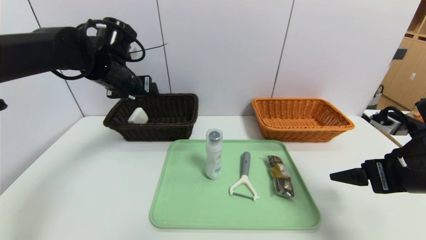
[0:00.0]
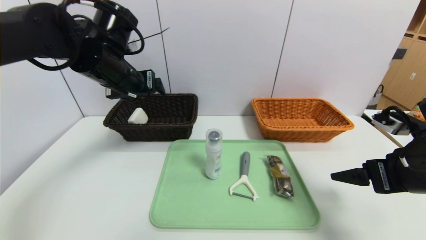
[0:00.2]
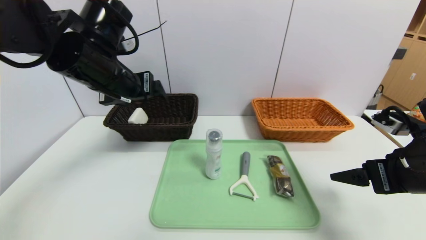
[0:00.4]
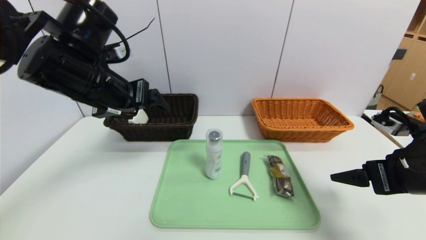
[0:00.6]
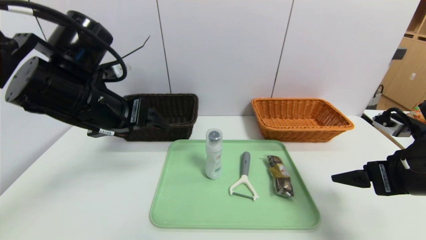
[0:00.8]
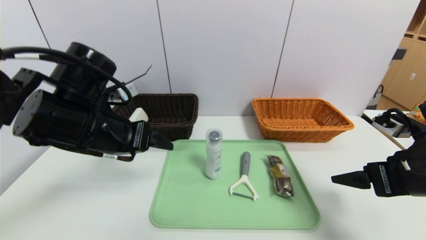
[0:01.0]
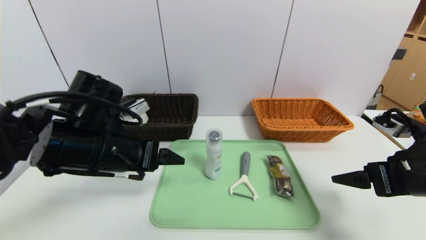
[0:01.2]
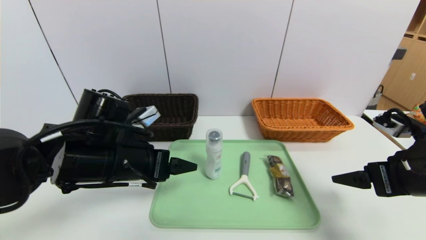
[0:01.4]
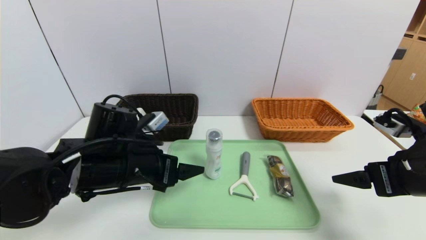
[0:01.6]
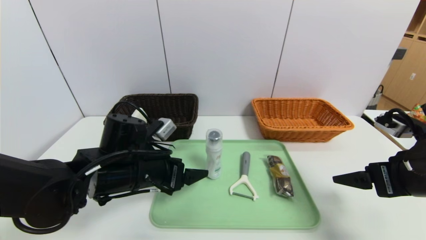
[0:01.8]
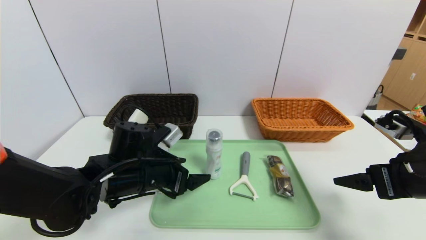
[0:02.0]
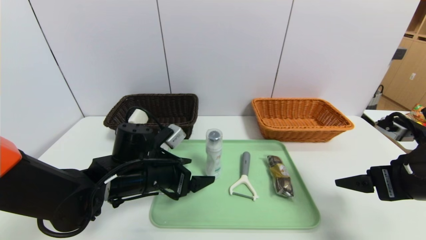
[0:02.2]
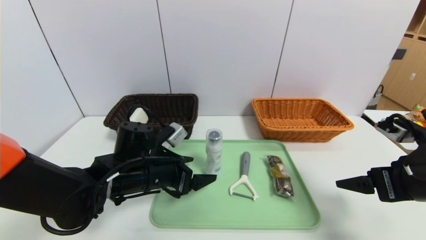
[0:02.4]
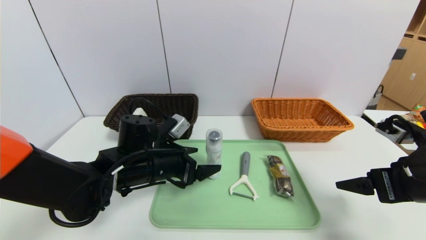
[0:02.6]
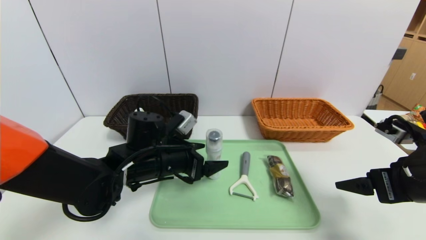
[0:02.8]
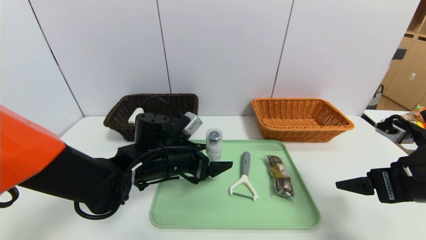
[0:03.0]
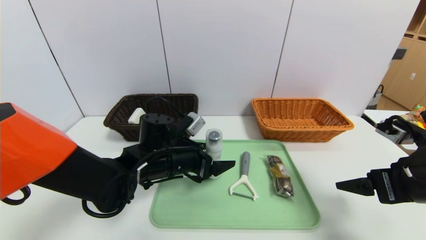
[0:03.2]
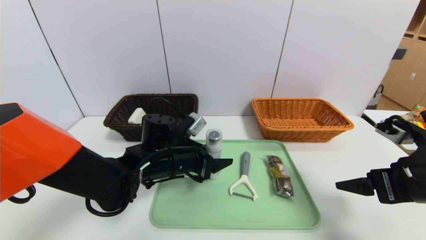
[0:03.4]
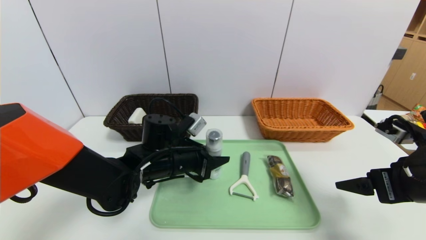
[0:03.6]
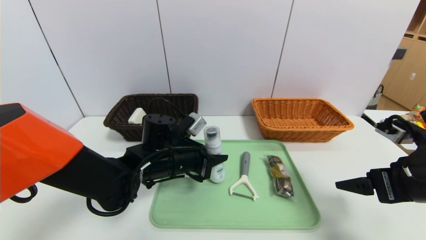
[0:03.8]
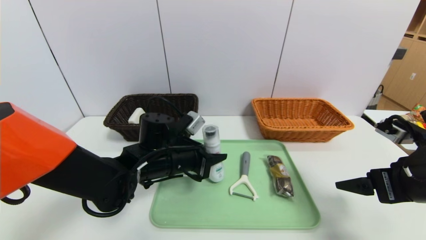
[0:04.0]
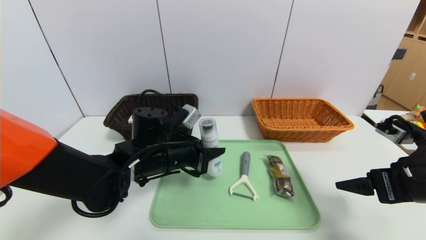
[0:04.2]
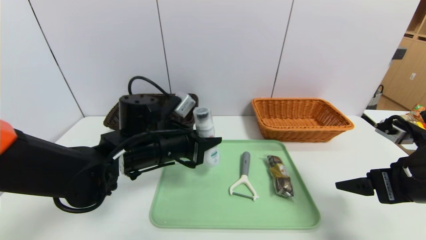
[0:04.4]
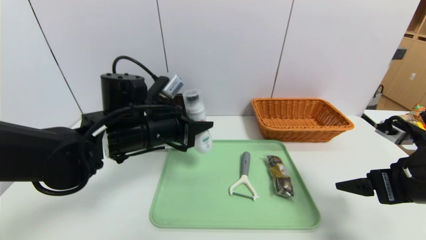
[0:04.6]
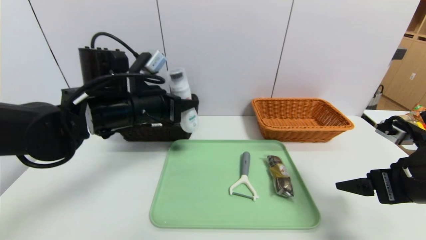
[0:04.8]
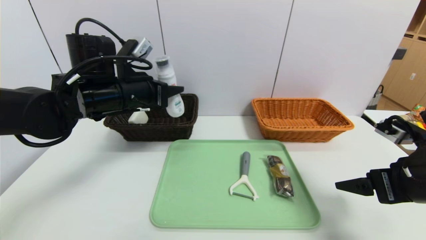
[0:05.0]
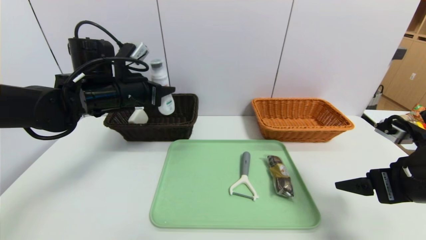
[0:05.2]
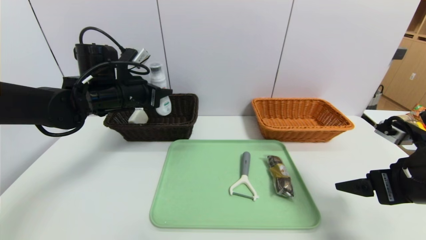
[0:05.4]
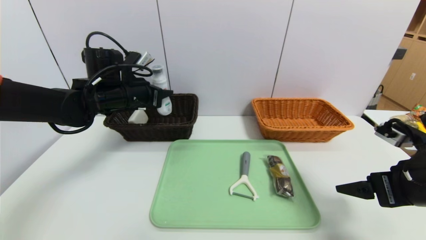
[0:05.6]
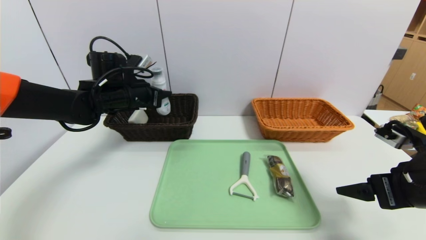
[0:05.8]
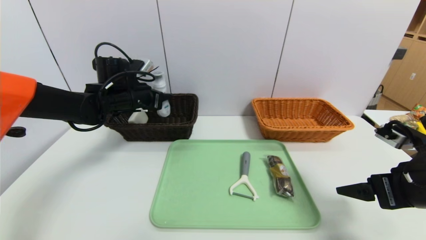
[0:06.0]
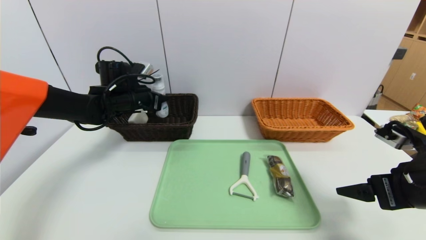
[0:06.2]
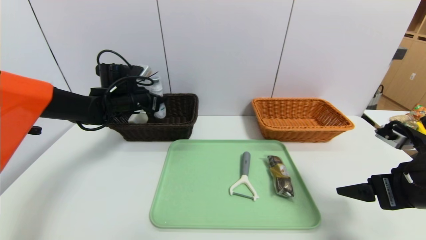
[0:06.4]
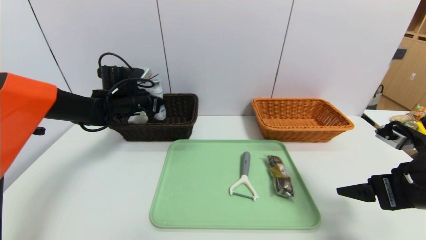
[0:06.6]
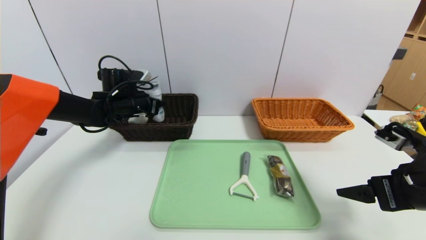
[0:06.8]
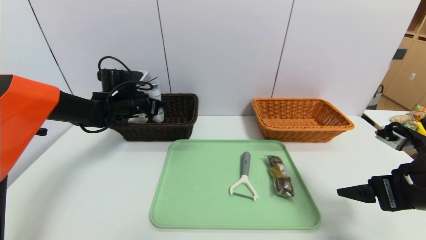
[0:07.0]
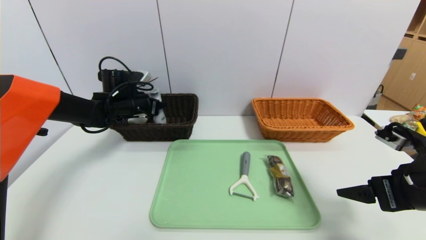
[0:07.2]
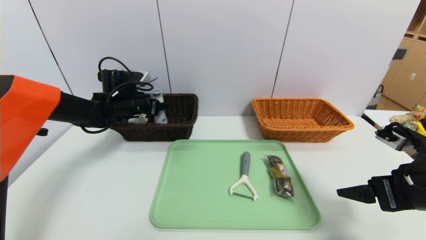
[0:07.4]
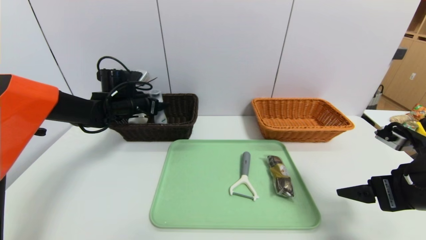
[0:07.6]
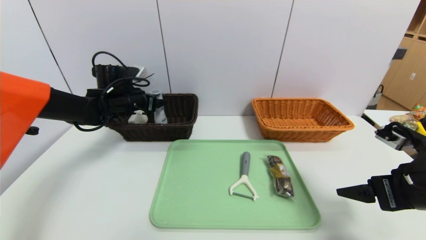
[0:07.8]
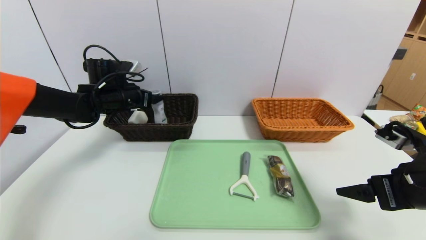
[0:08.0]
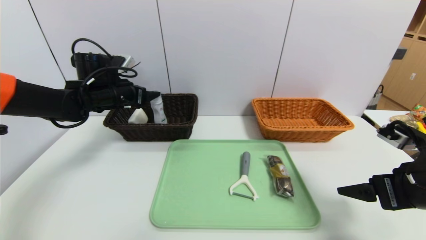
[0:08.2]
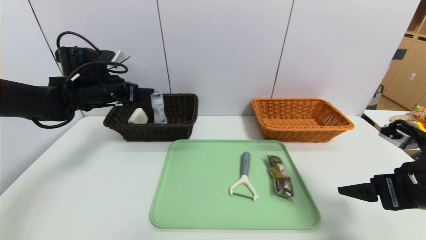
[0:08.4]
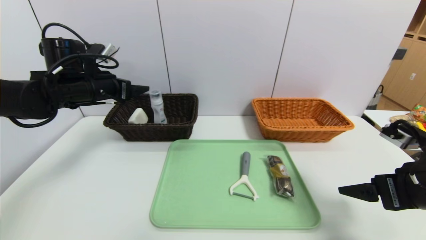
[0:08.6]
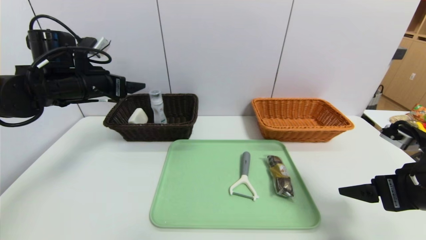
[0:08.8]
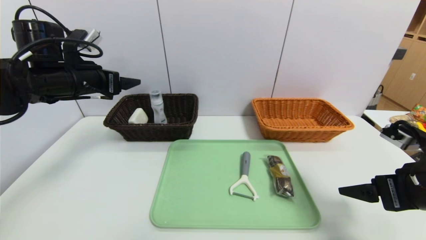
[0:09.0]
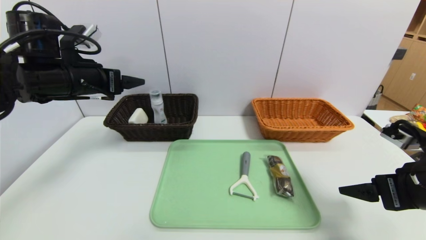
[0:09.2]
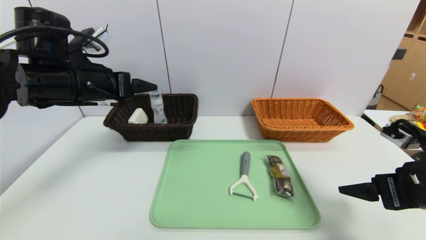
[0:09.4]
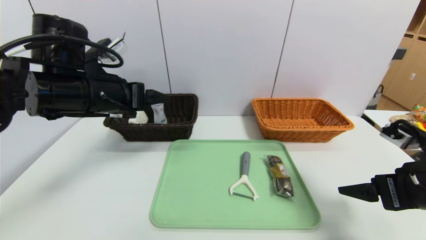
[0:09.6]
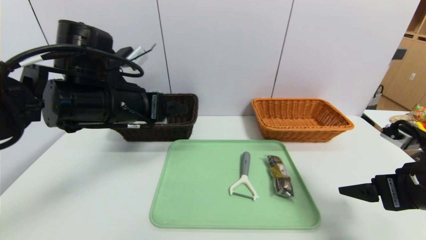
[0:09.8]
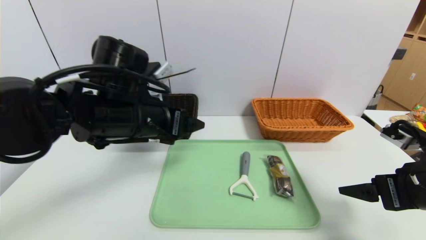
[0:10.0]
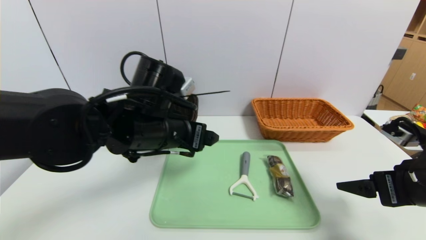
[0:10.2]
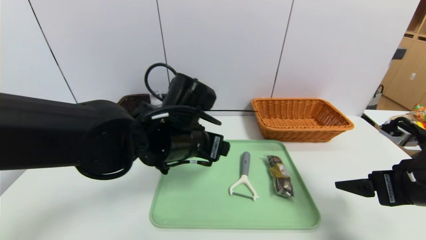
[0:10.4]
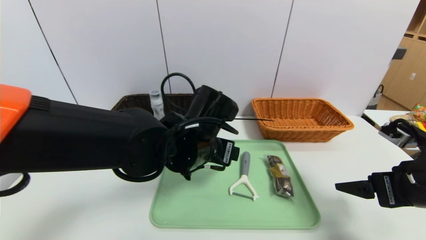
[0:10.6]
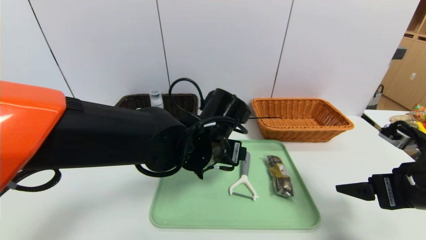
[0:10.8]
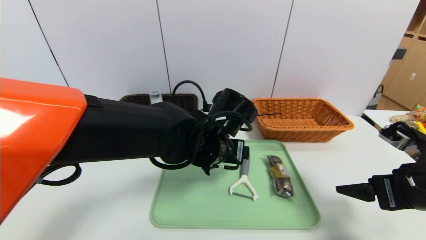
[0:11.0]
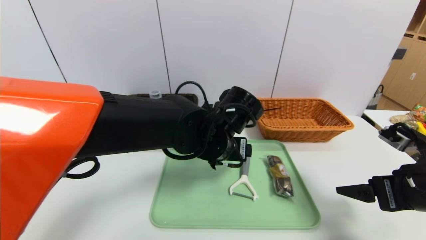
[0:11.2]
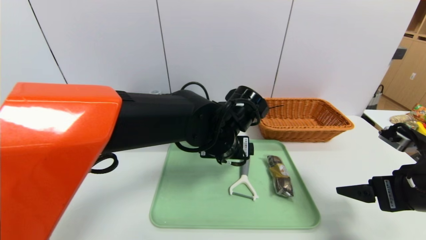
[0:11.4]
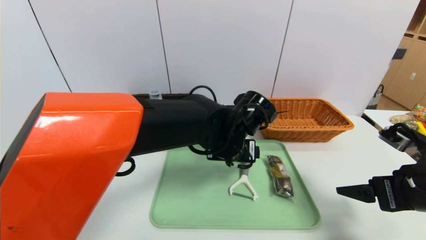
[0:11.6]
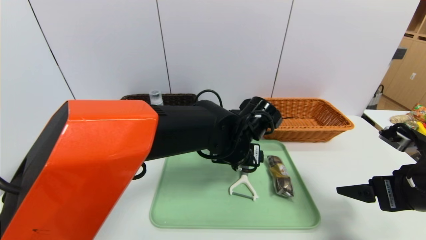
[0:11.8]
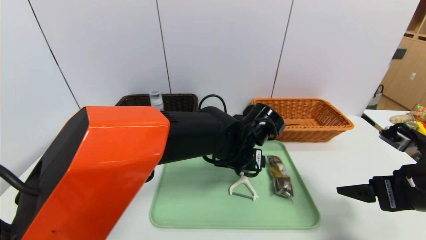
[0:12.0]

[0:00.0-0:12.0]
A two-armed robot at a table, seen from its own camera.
Task of the whole recording: place the food in the right basket with the right gripper, and place the non food items in the left basket with the left gripper.
Step, 0:00.0 to 0:07.6: Grasp the cleaning agent and put it in the left basket.
0:00.0 to 0:01.6: The left gripper heads backward and downward, covering roughly 20 cm.
0:01.6 to 0:03.0: The left gripper moves to the right, some 5 cm.
0:03.0 to 0:04.4: The left gripper shifts roughly 5 cm upward, and closes its fingers.
0:04.4 to 0:06.0: The left gripper travels forward and to the left by about 20 cm.
0:06.0 to 0:07.6: The left gripper opens up.
0:07.6 to 0:09.0: The left gripper travels backward and upward by approximately 15 cm.
0:09.0 to 0:10.4: The left gripper heads to the right, covering some 20 cm.
0:10.4 to 0:12.0: The left gripper goes approximately 10 cm to the right and downward.

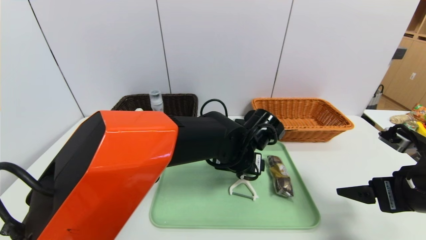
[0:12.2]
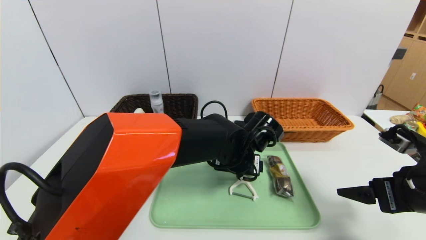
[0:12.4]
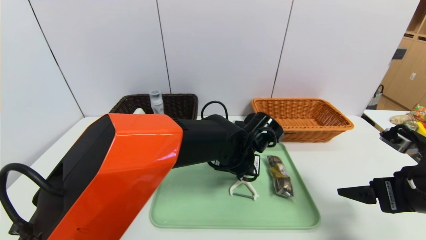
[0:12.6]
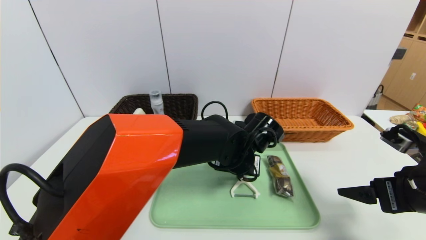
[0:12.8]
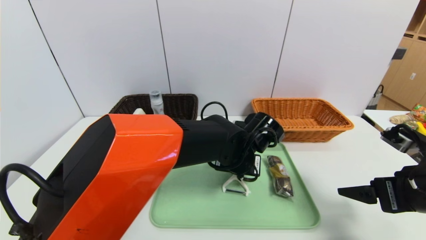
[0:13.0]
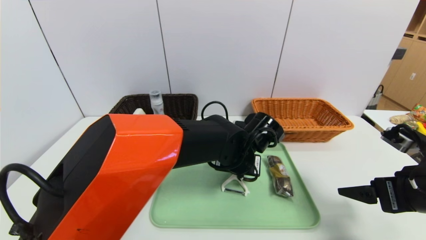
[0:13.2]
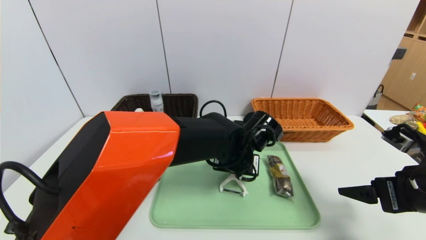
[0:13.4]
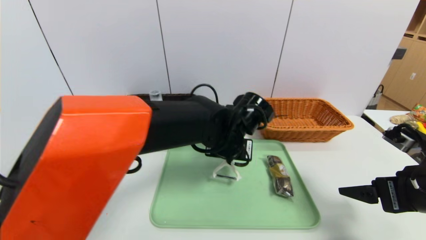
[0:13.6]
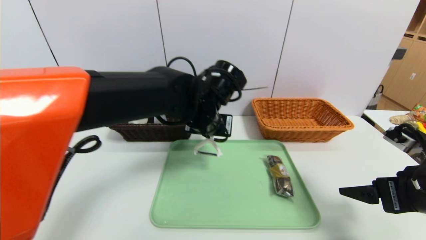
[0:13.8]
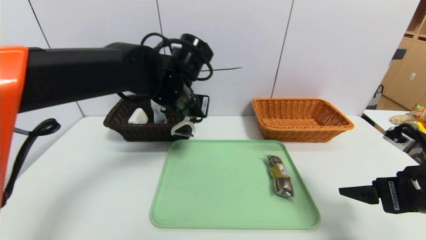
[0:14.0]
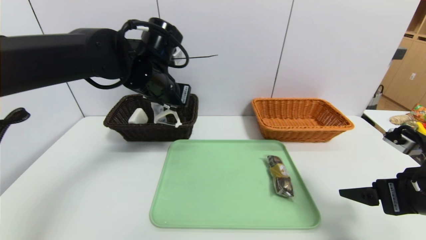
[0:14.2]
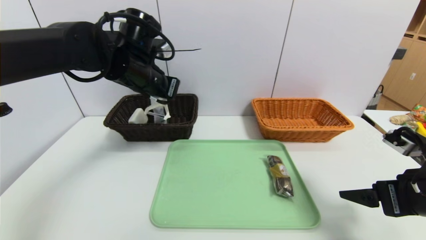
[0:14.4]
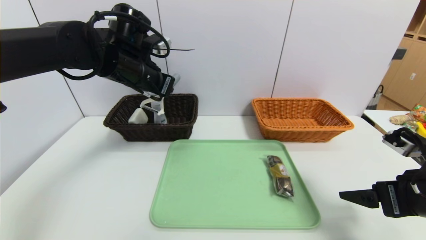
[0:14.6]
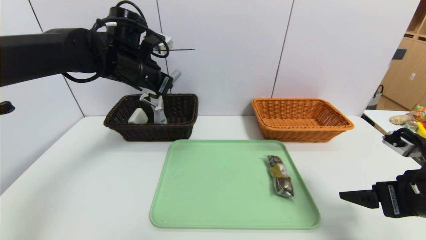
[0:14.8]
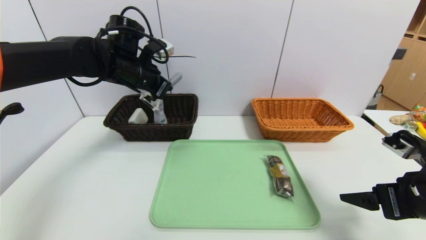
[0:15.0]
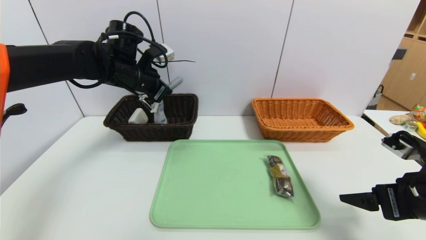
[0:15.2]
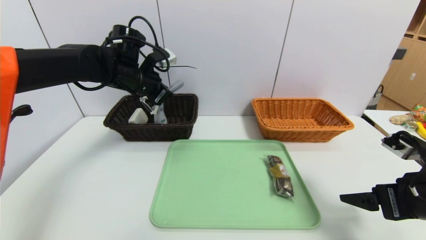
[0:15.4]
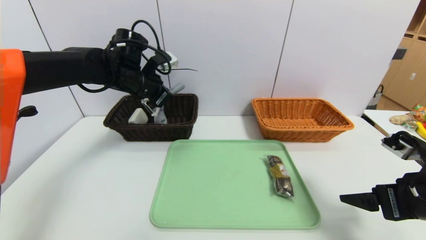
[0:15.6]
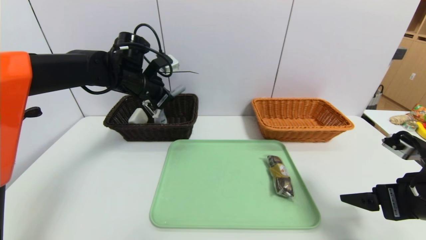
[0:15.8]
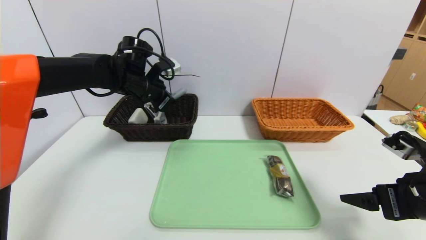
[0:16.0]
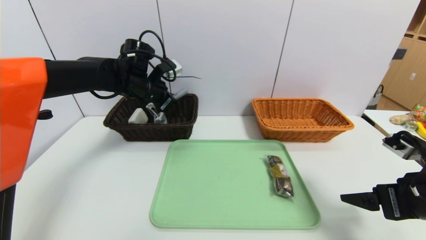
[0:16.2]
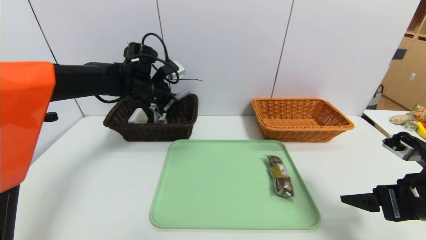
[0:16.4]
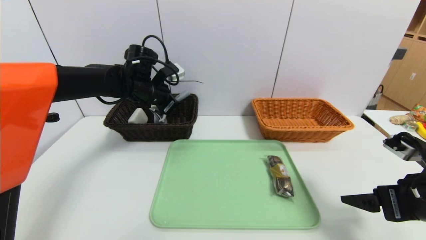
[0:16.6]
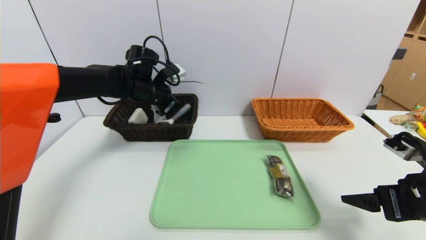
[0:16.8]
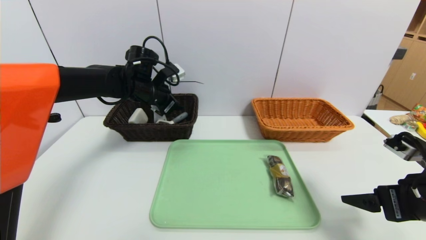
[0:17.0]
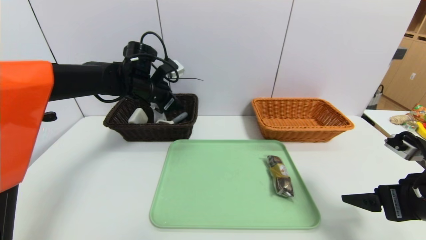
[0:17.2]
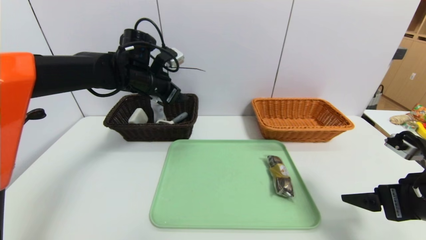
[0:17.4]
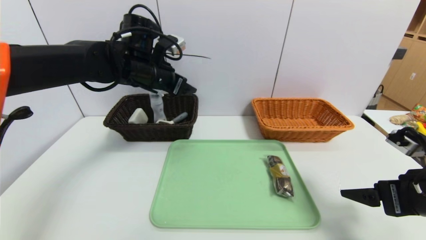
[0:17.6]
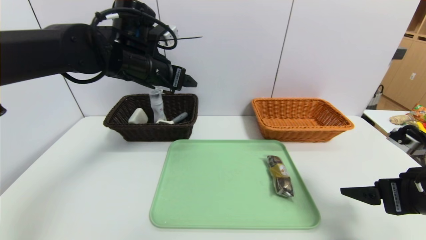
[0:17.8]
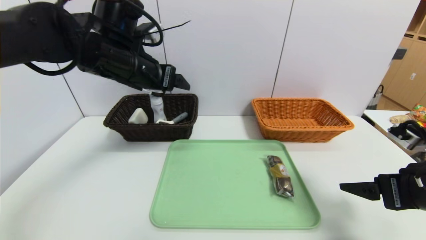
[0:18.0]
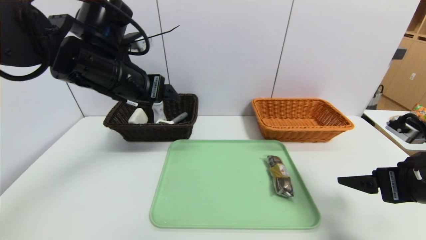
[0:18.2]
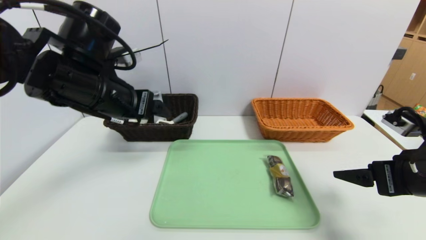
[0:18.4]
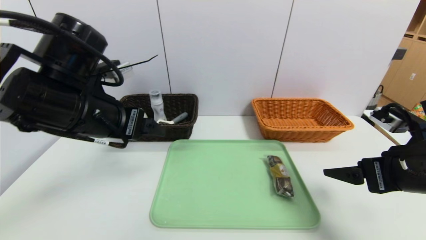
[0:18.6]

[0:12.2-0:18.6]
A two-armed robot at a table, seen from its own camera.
Task of the whole recording: place the food in the right basket with the right gripper, and place the non food items in the left basket with the left gripper.
Step, 0:12.2 to 0:17.2: Grasp the peeler and put it in the left basket.
0:12.2 to 0:13.8: The left gripper is displaced upward and to the left by about 10 cm, and closes its fingers.
0:13.8 to 0:15.4: The left gripper is displaced to the left and forward by approximately 20 cm.
0:15.4 to 0:17.0: The left gripper opens up.
0:17.0 to 0:18.6: The left gripper goes roughly 20 cm backward, and opens.
